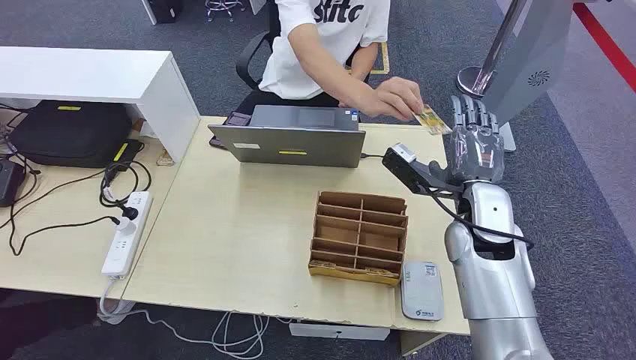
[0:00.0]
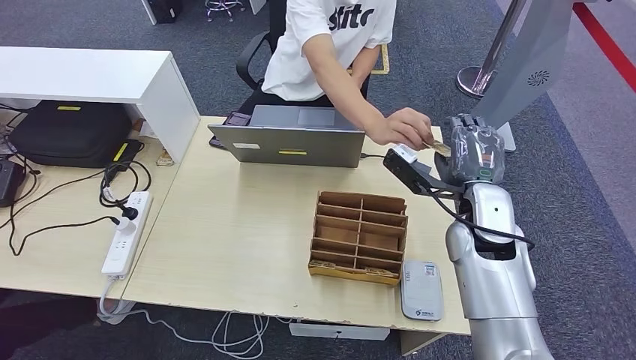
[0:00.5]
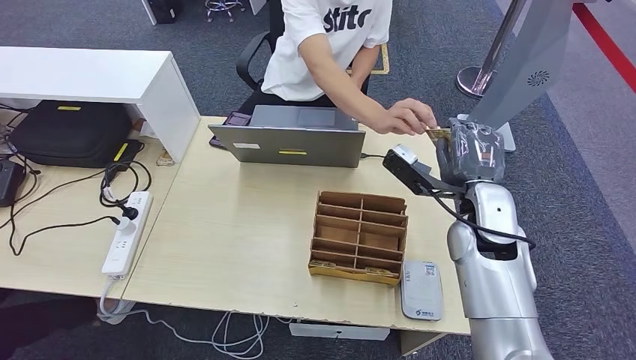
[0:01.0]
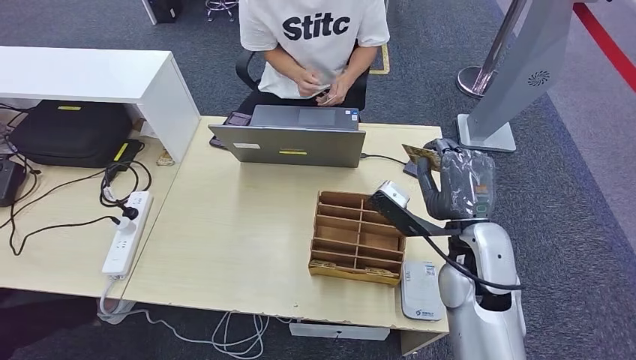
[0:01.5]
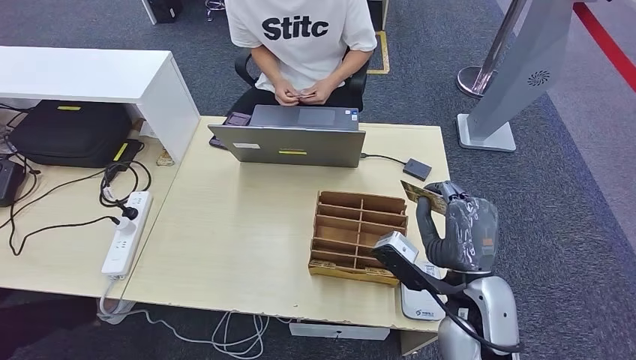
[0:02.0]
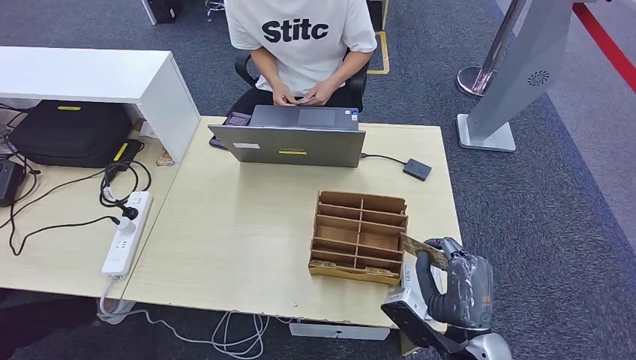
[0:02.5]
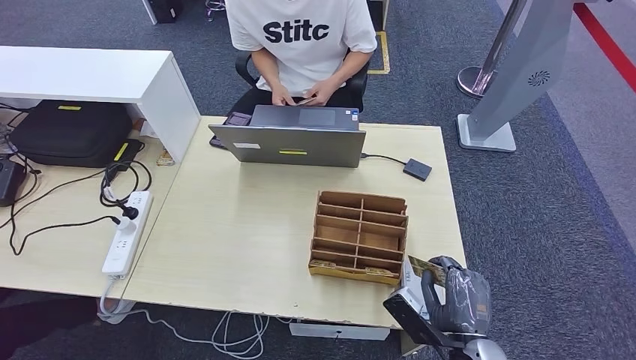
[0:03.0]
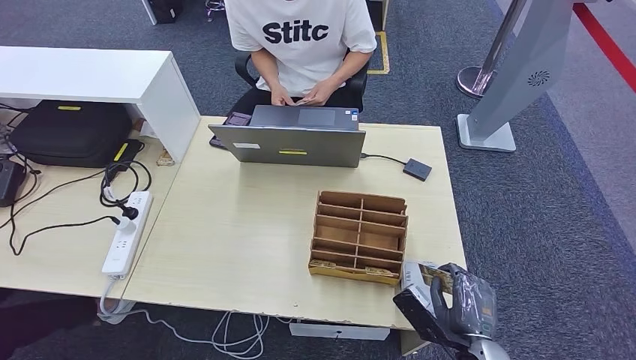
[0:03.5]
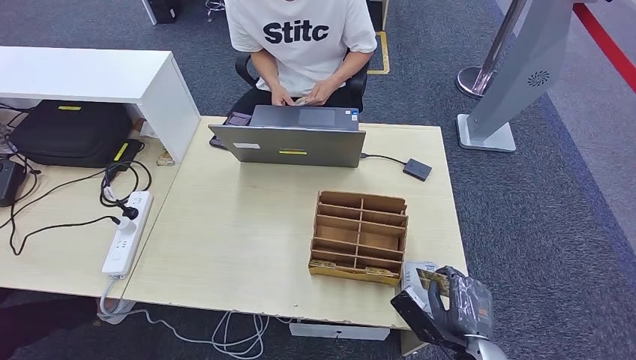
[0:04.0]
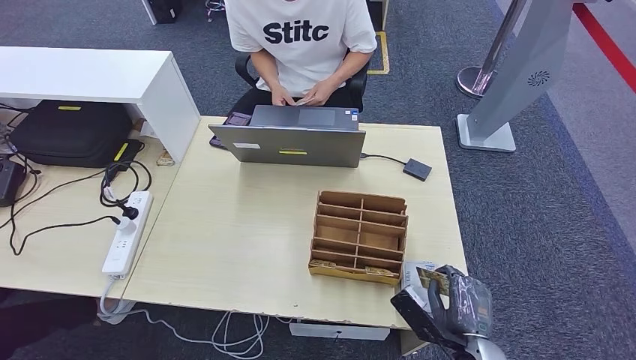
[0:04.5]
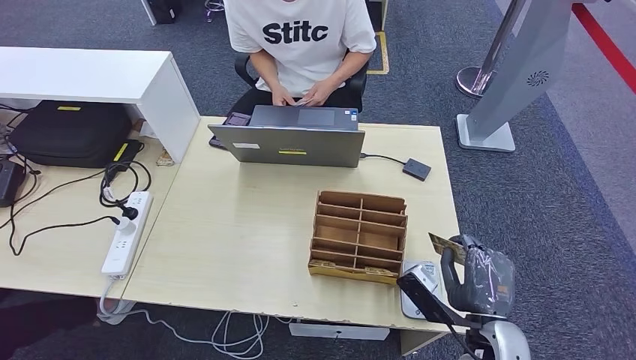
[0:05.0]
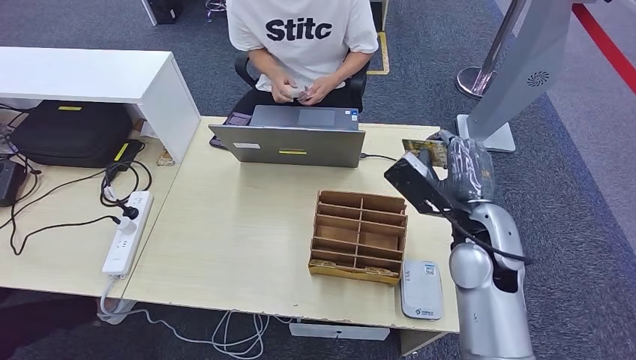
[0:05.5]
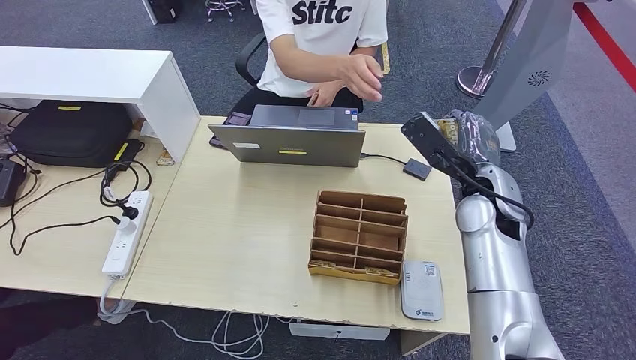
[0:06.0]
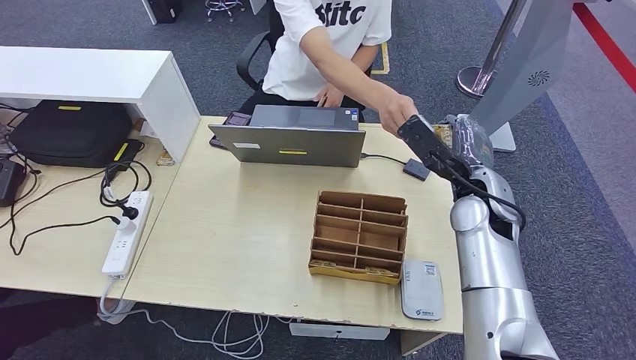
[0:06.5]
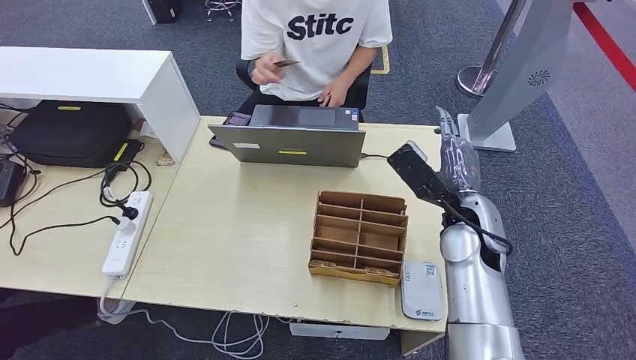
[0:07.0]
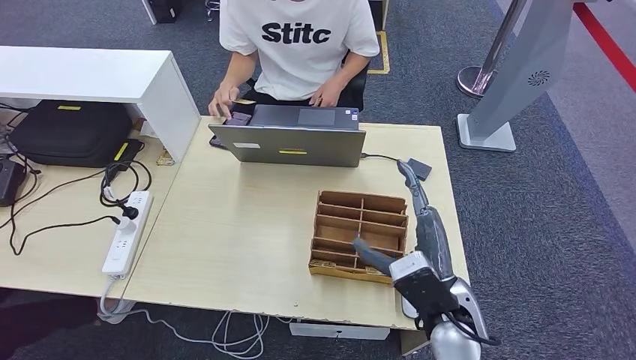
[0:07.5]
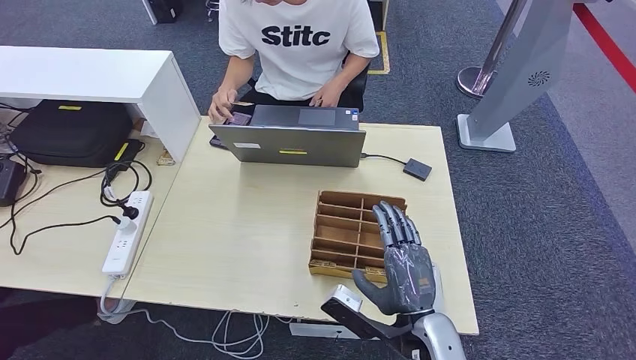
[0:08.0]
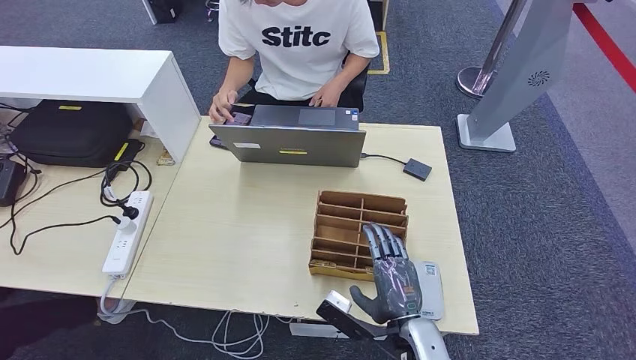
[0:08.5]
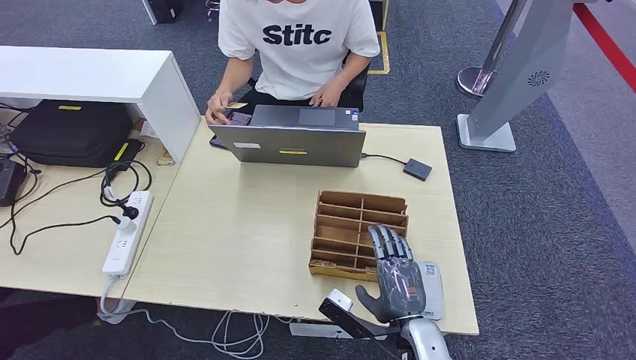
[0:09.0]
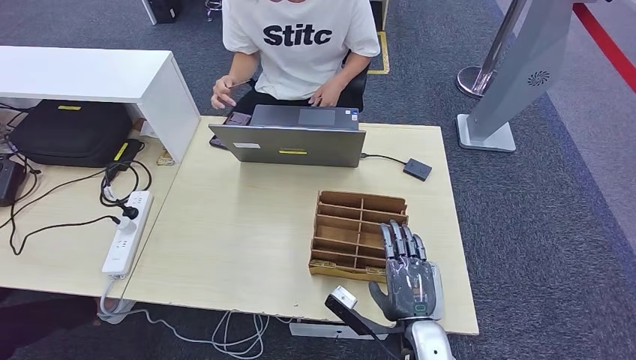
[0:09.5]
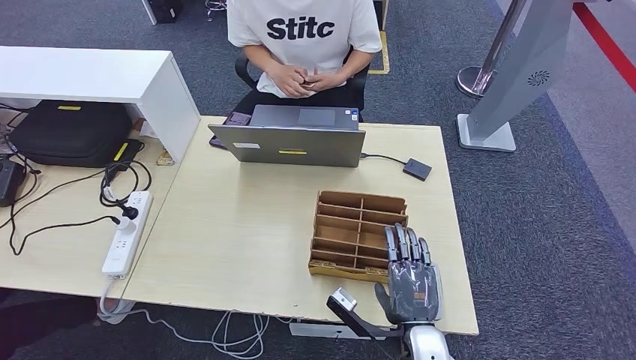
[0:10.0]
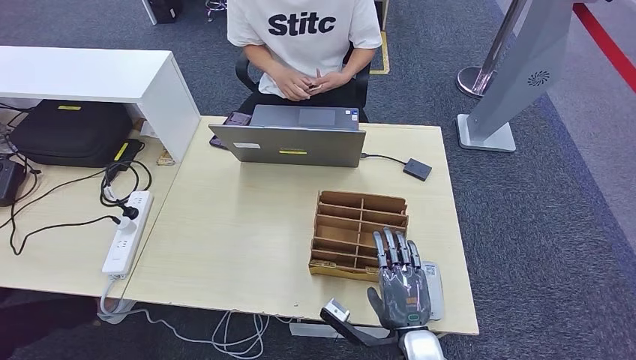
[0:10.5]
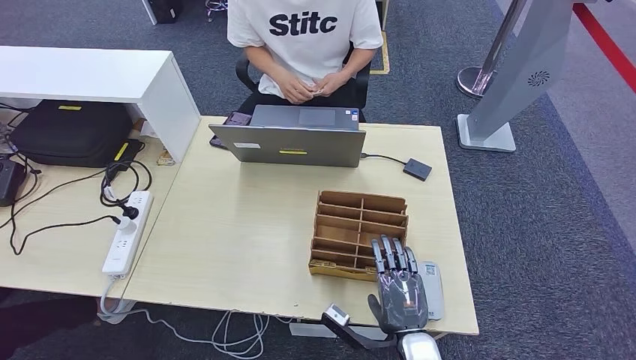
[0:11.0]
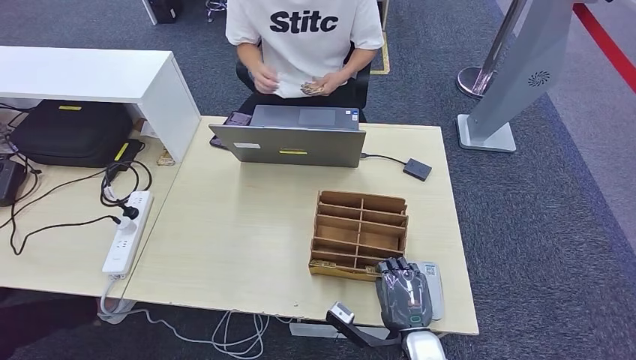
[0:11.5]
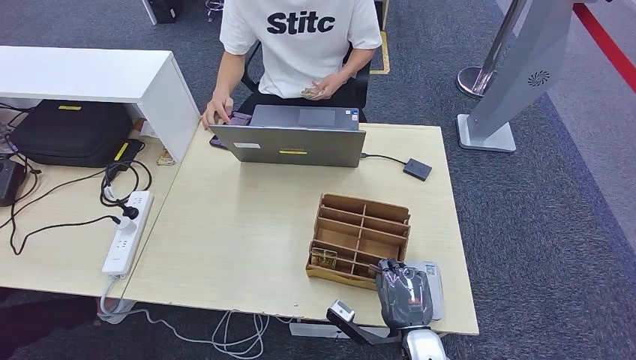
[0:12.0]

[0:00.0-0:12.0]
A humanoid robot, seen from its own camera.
Step, 0:00.0 to 0:01.5: Take the ID card from the person's hand.
Step, 0:02.0 to 0:06.0: Place the ID card on the card reader.
Step, 0:06.5 to 0:11.5: Hand the ID card to the person.
0:02.0 to 0:04.0: The right hand shifts about 15 cm downward and backward.
0:04.0 to 0:06.0: The right hand is displaced forward and upward by some 30 cm.
0:06.0 to 0:08.0: The right hand shifts some 25 cm backward and downward.
0:08.0 to 0:10.0: The right hand heads downward, covering some 5 cm.
0:10.0 to 0:12.0: The hands stay close to where they were, moving slightly.

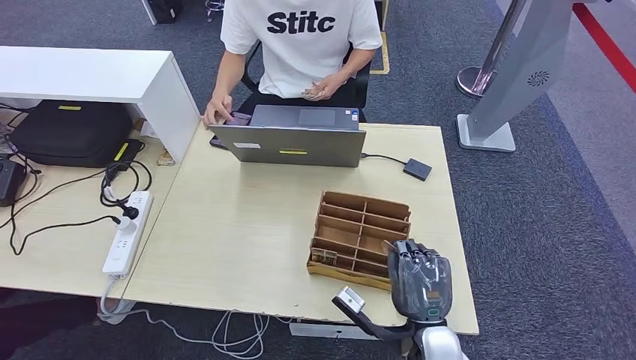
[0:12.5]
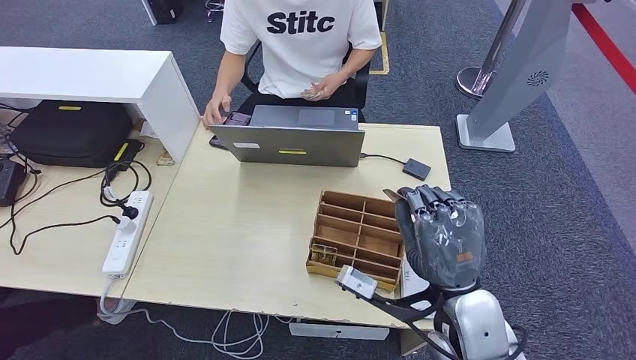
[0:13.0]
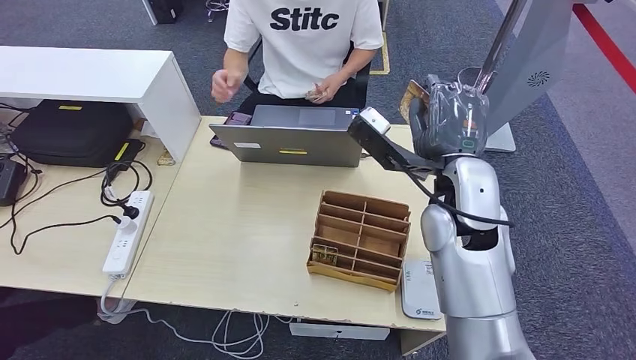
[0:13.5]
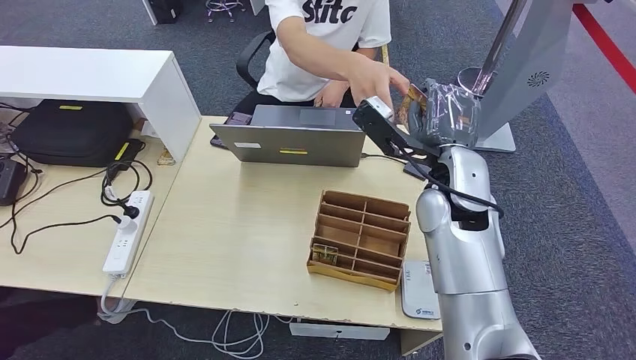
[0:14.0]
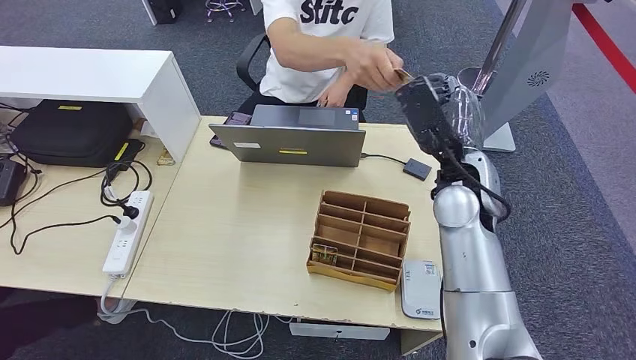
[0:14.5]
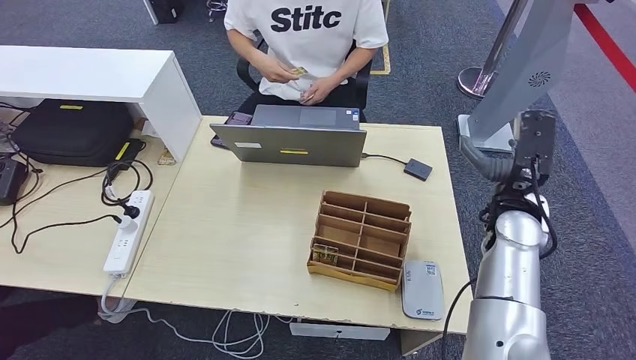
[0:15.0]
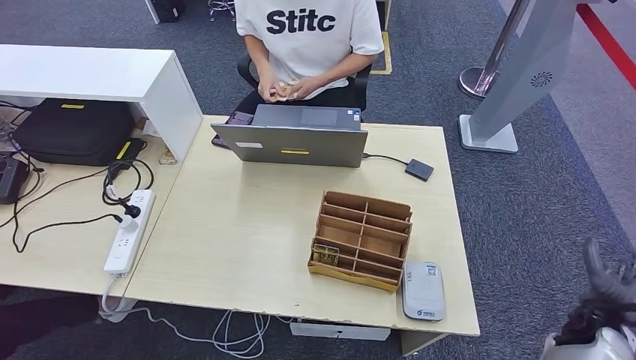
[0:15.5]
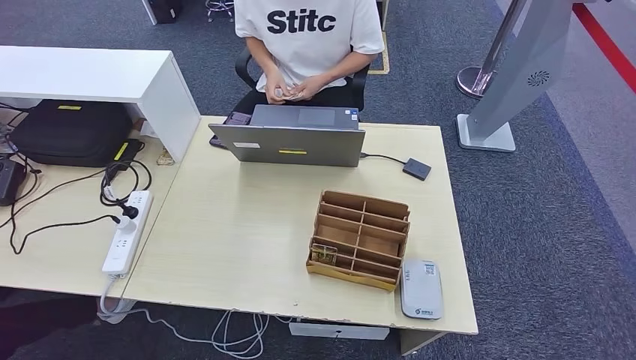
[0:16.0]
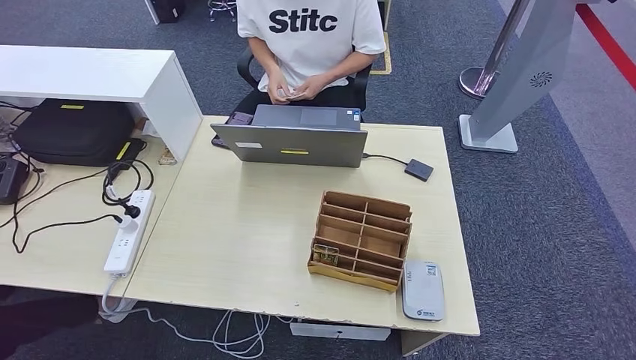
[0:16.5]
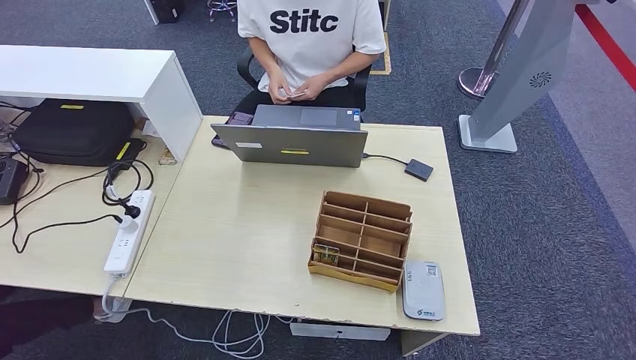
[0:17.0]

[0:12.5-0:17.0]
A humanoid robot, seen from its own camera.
Step, 0:13.5 to 0:17.0: Hand the room key to the person.
0:12.5 to 0:14.5: The right hand moves upward and forward, approximately 25 cm.
0:14.5 to 0:17.0: The right hand goes some 60 cm downward, backward and to the right.
